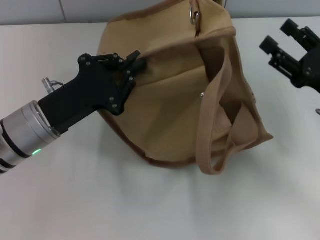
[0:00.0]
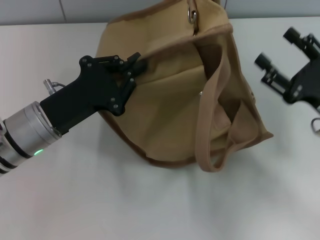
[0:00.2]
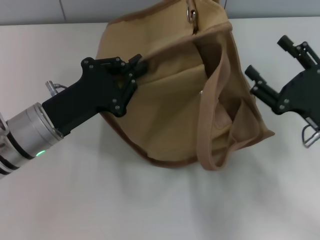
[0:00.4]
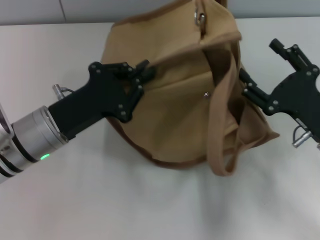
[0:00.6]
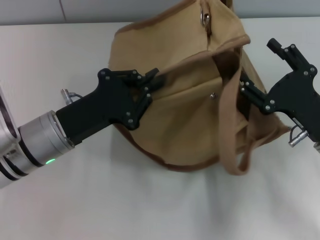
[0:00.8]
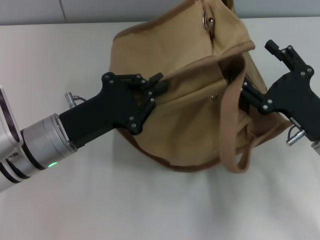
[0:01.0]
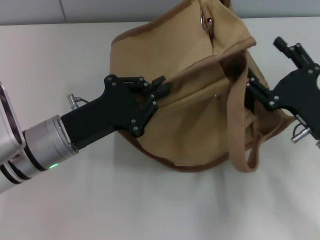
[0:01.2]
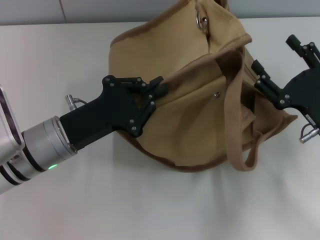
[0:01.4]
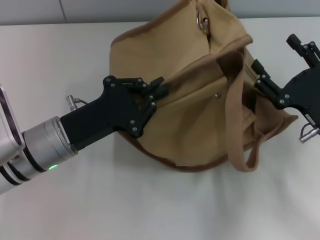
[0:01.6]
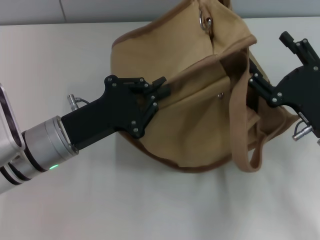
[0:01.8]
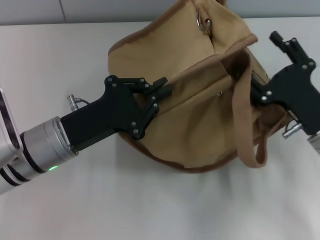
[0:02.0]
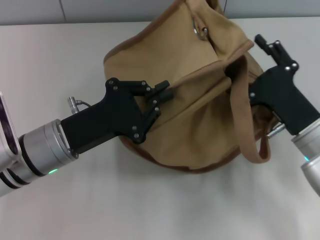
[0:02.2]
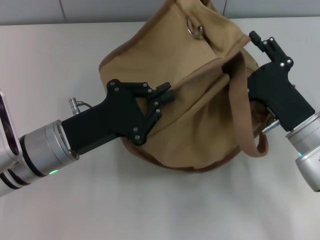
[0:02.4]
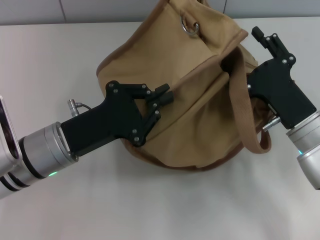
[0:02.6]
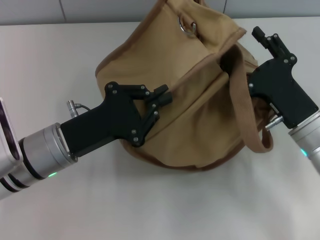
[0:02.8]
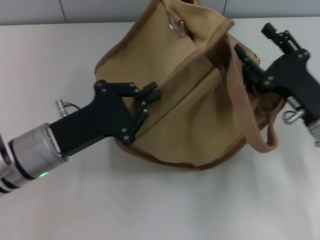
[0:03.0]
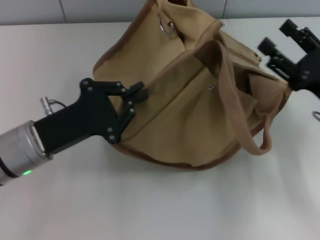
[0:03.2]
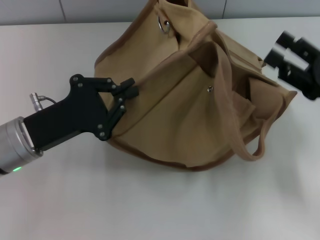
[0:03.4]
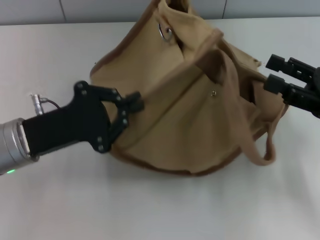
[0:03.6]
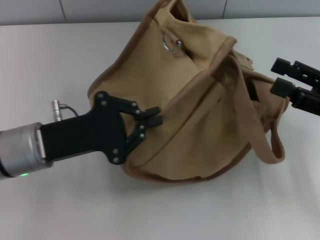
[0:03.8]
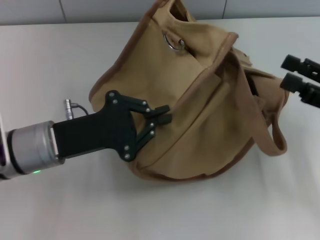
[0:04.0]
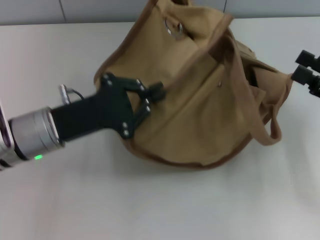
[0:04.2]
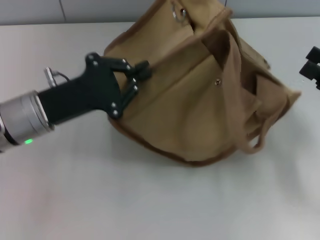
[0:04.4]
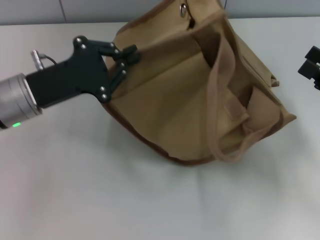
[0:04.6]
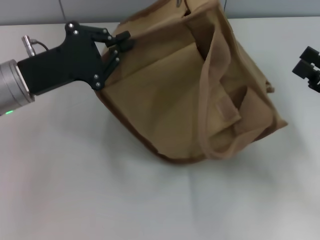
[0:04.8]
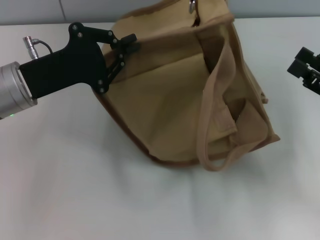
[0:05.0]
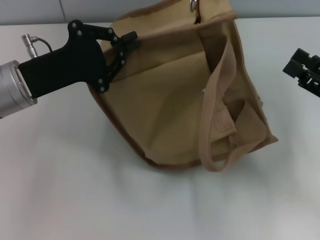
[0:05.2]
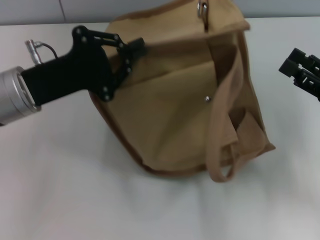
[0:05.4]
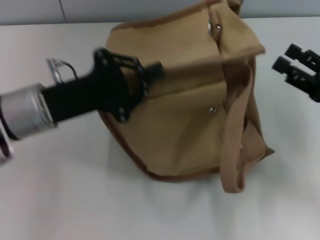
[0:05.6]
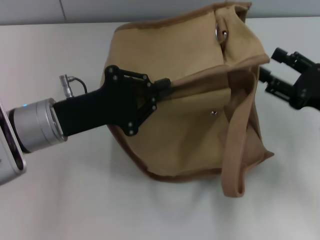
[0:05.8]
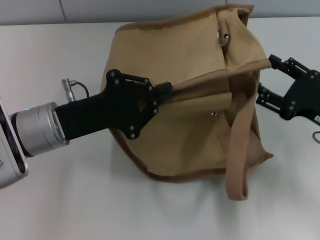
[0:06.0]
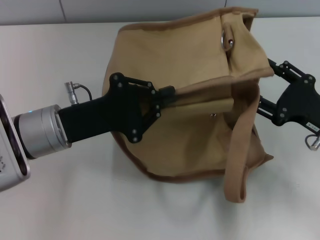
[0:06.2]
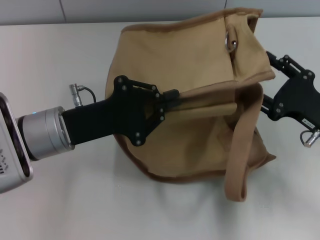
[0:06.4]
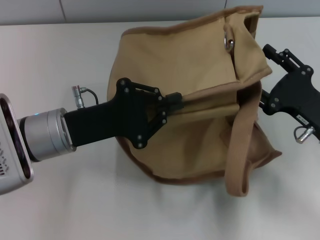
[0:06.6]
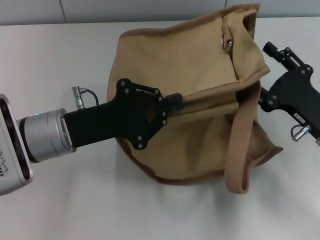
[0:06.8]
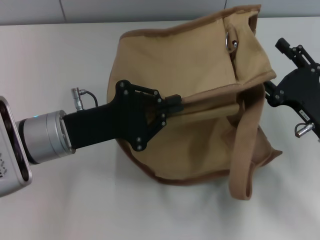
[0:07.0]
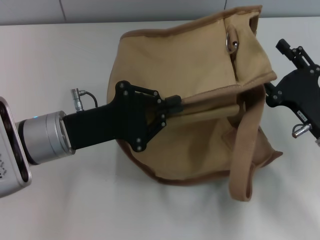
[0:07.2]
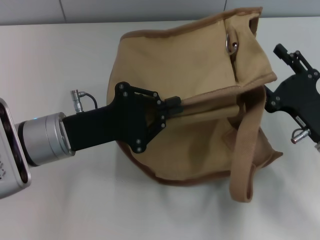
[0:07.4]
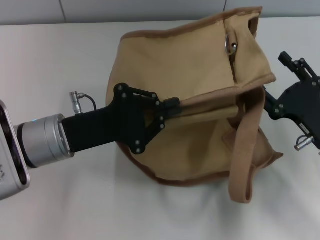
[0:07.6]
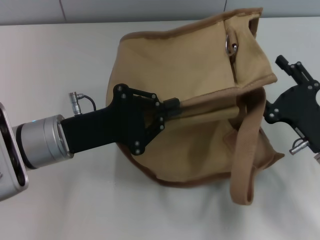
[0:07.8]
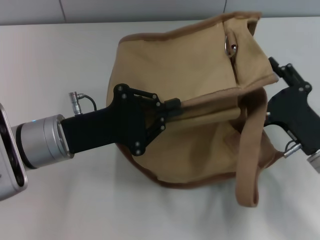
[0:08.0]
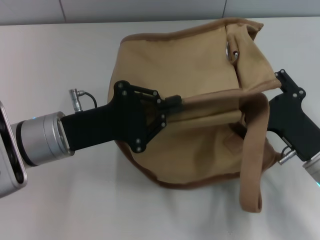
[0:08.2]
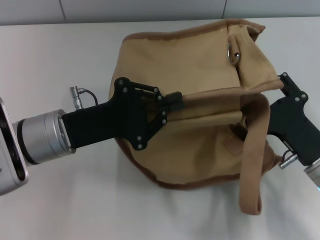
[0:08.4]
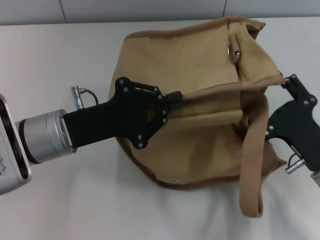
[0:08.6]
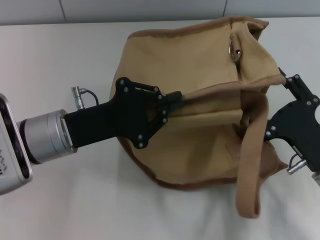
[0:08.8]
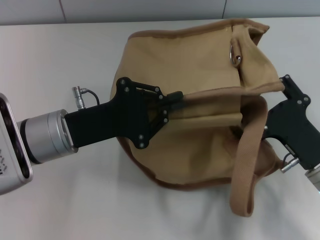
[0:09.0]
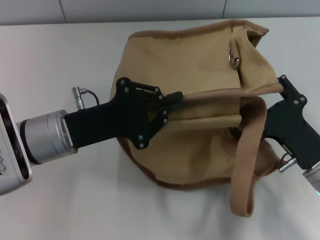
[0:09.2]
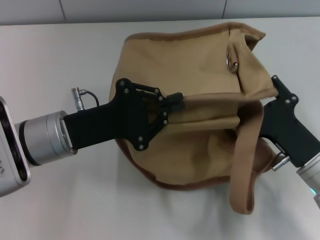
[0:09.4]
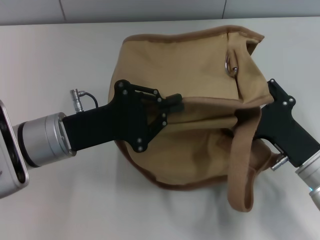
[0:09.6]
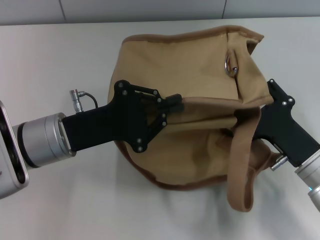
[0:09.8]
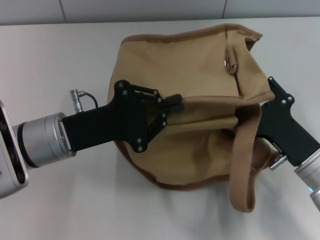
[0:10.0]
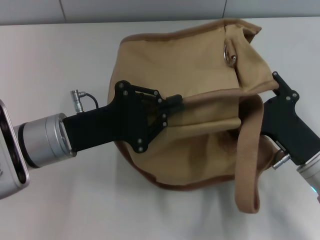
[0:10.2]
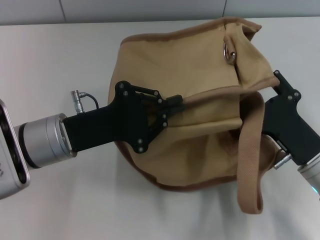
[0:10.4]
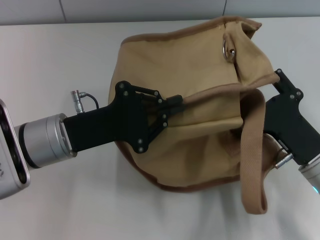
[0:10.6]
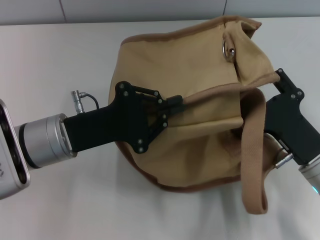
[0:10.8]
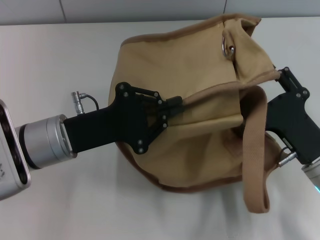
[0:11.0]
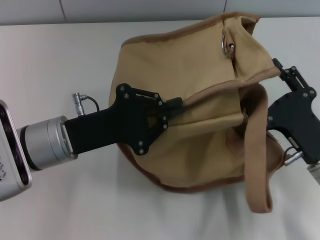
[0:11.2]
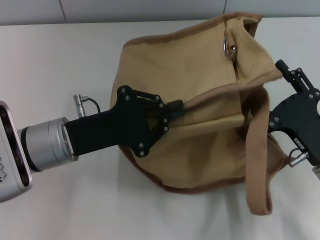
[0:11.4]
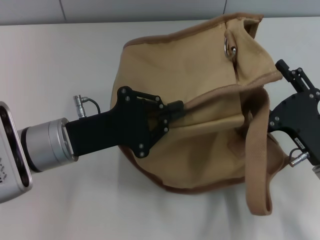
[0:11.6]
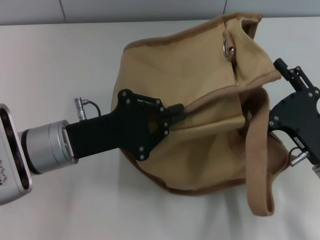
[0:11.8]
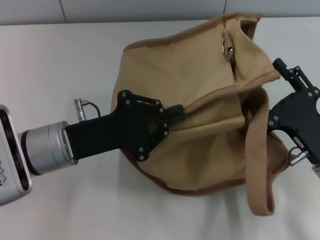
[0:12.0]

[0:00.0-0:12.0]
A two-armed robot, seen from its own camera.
0:00.0 to 0:01.6: The right gripper moves some 5 cm.
0:03.0 to 0:04.4: The right gripper goes about 10 cm to the right; the left gripper moves about 5 cm.
0:04.4 to 0:06.0: The right gripper changes place by roughly 5 cm.
0:06.0 to 0:07.6: The right gripper changes place by some 5 cm.
0:09.0 to 0:12.0: The grippers make only small movements.

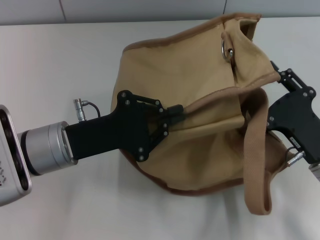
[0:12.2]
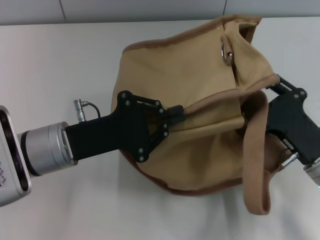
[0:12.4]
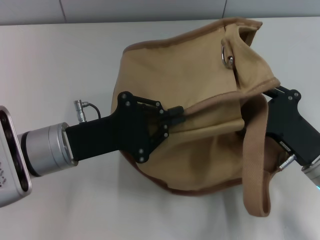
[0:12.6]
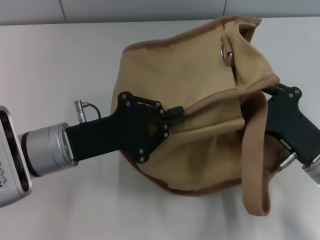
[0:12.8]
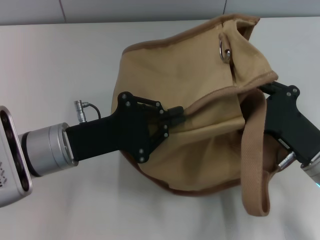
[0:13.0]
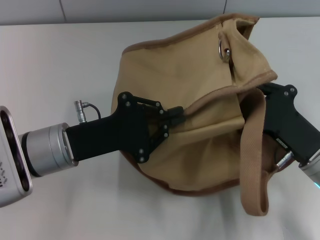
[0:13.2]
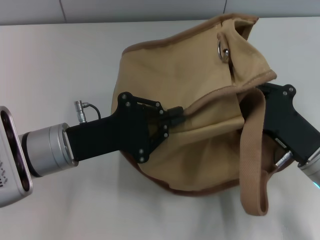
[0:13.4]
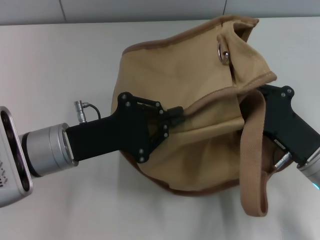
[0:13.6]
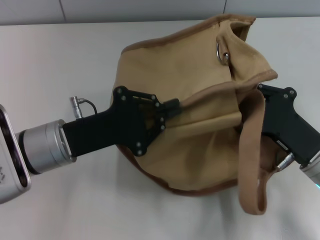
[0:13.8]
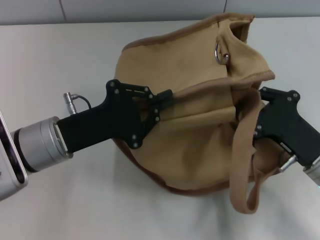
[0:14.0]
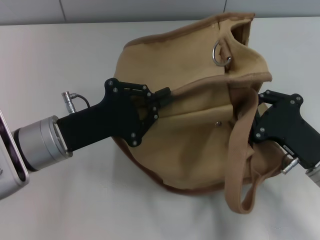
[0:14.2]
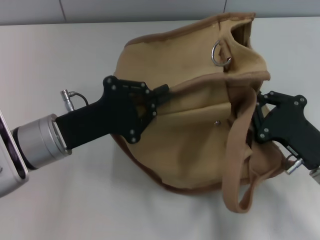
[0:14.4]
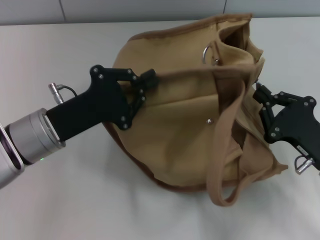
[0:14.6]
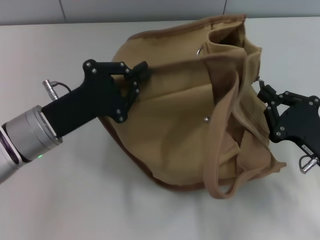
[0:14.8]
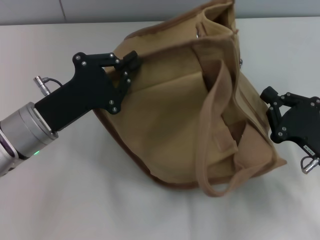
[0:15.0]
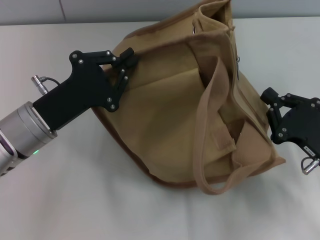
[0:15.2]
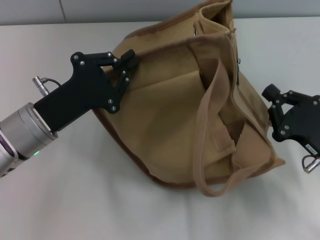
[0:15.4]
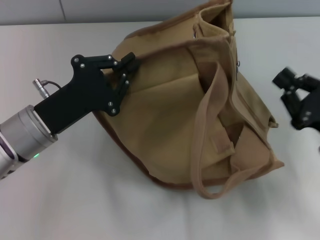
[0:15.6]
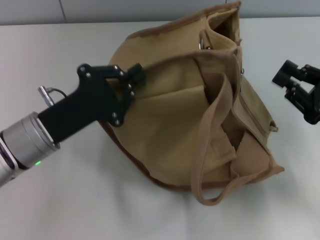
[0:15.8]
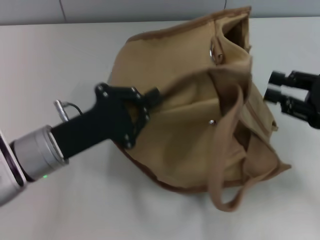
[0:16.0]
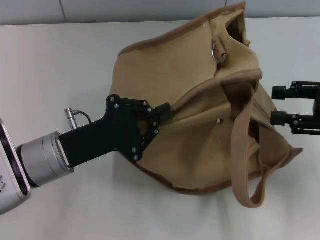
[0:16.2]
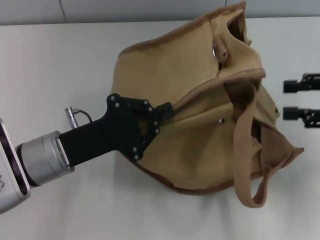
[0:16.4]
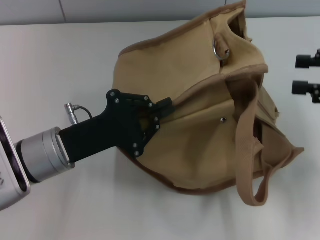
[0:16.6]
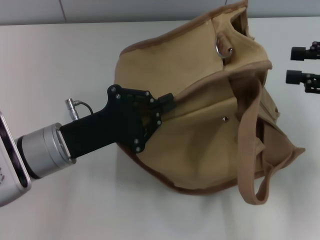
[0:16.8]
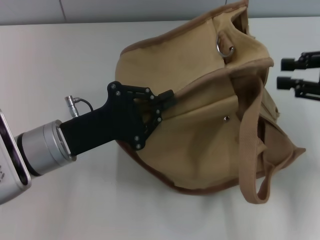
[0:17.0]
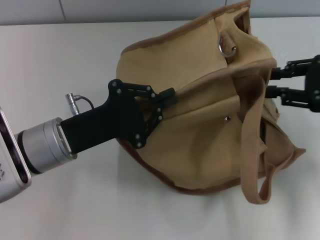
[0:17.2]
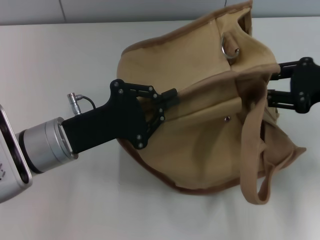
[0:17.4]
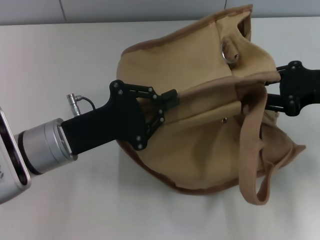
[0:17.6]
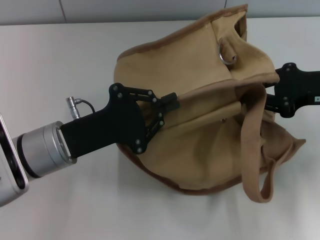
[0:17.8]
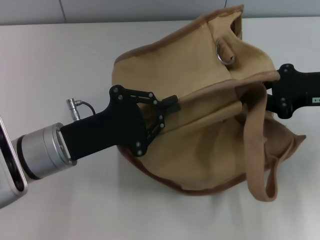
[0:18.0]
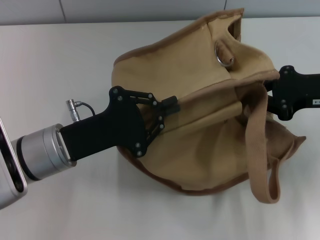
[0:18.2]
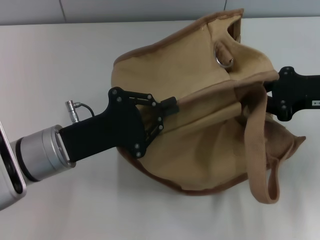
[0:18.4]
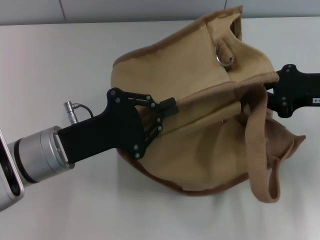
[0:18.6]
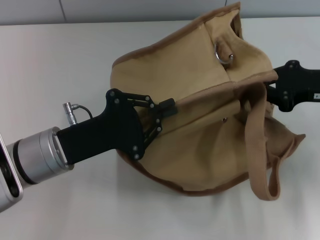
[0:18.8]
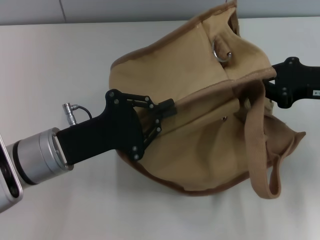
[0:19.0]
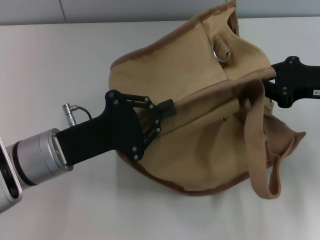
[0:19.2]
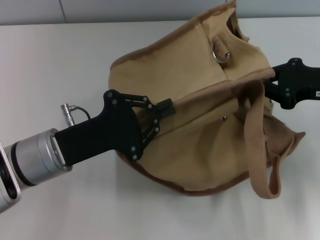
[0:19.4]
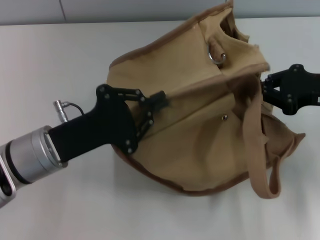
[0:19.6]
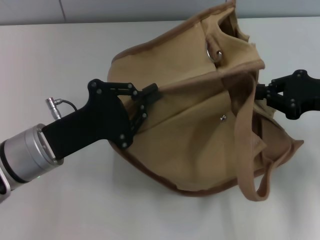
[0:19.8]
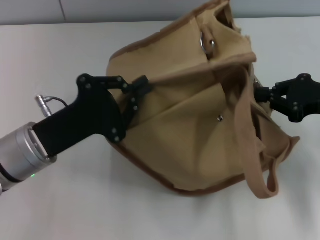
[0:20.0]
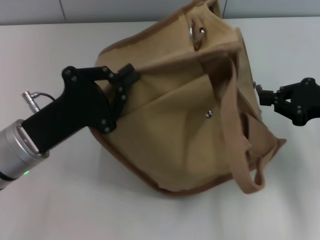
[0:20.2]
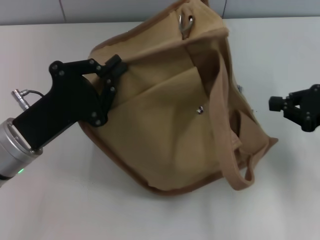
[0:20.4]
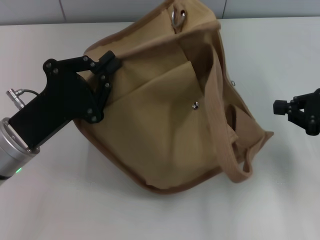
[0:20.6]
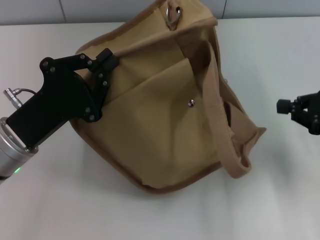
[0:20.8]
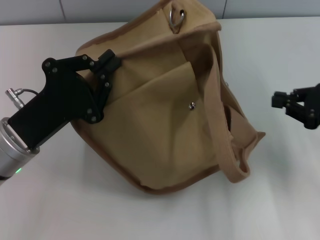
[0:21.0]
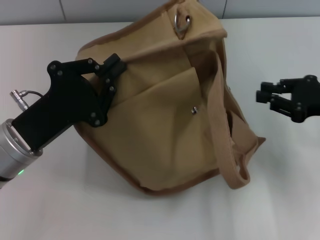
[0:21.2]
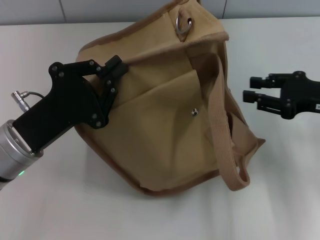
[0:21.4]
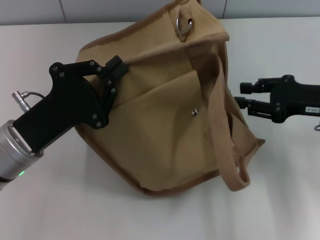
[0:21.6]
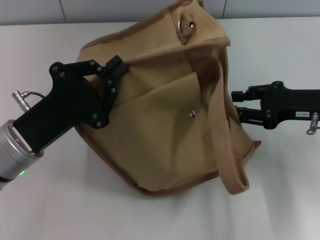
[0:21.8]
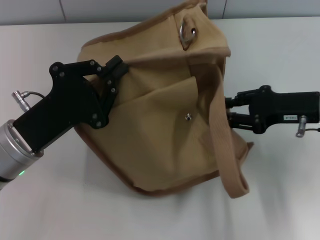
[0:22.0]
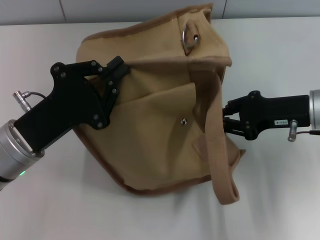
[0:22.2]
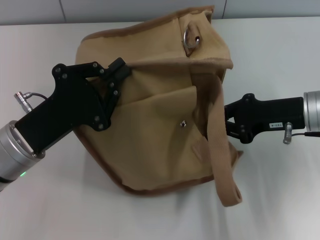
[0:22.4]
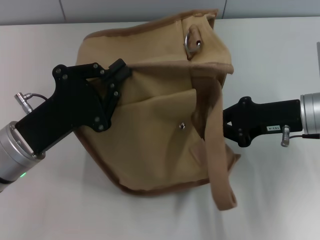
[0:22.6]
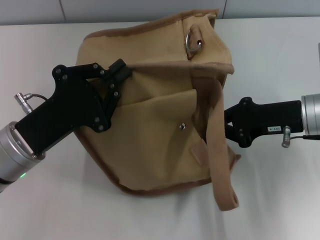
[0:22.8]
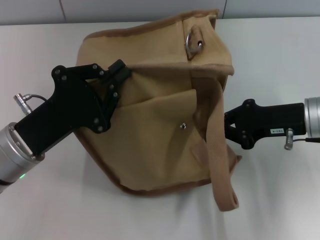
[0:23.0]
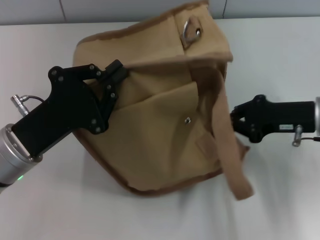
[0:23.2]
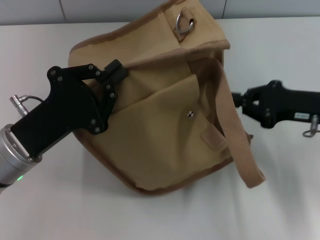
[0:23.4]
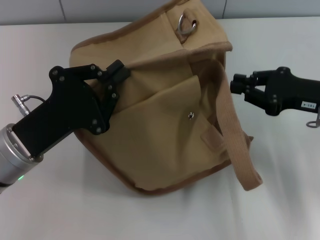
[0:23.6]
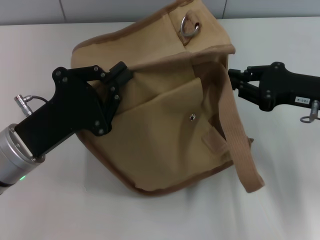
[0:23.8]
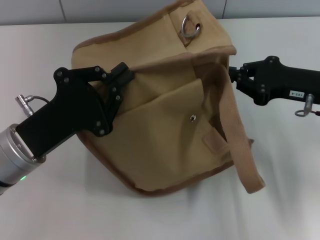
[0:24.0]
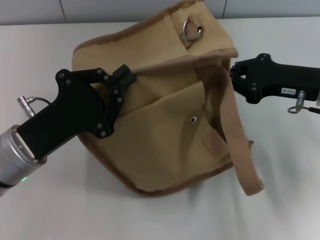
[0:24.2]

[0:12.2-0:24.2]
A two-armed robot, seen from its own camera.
Step, 0:12.2 to 0:20.2: Pull open the zipper with your right hand.
0:12.2 to 0:13.8: The right gripper closes.
0:15.2 to 0:16.6: The right gripper travels upward, to the right and forward by roughly 20 cm, and opens.
0:16.6 to 0:18.2: The right gripper is displaced to the left by approximately 5 cm, and closes its fingers.
0:21.2 to 0:22.6: The right gripper goes approximately 10 cm to the left, and opens, then closes once more.
